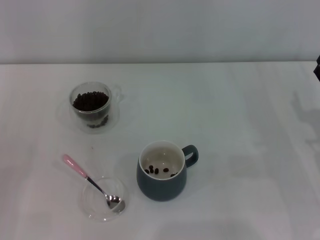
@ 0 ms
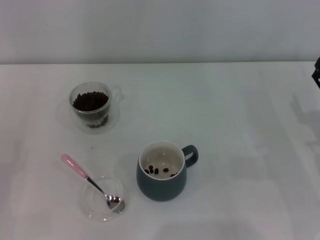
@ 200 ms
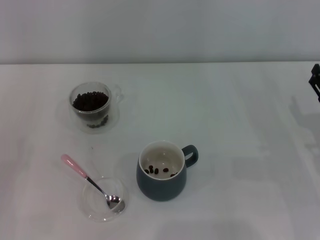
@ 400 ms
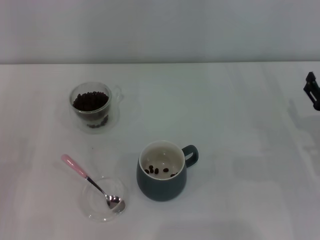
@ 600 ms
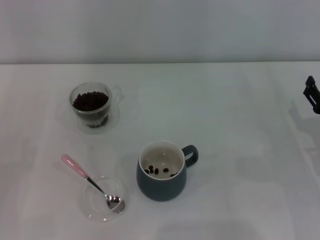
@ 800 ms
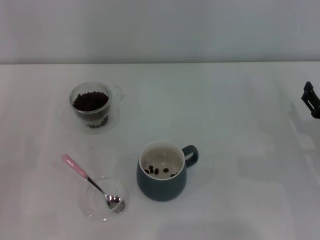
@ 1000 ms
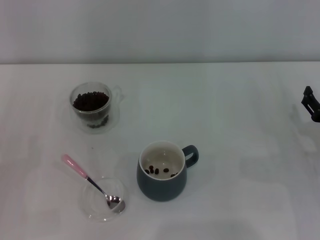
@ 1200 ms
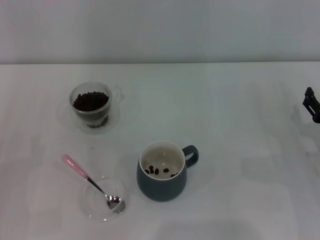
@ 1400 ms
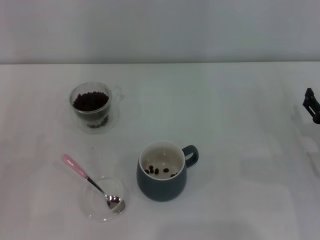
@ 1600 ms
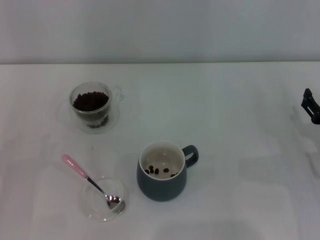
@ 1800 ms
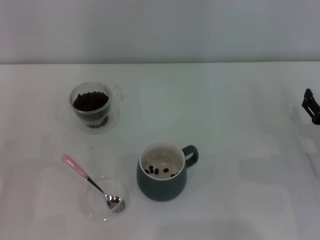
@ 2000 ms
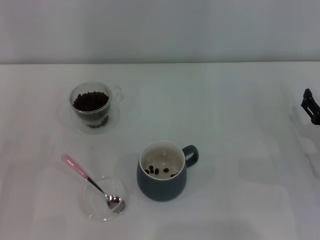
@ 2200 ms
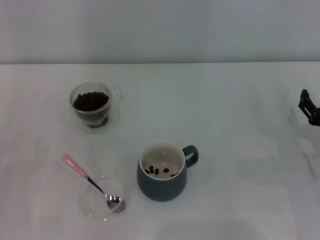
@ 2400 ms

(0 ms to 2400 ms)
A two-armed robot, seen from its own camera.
Task of the whole recording: Use a pink spoon to take out the coffee beans from the glass and pour them into the gray cup.
0 ms - 1200 ms: The grippers move only a little.
1200 ms - 2400 ms: Both grippers stay put.
